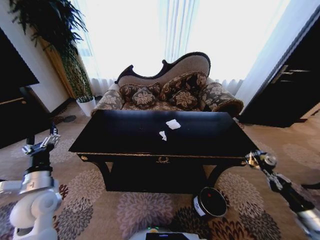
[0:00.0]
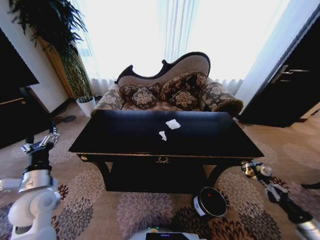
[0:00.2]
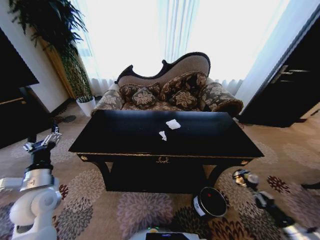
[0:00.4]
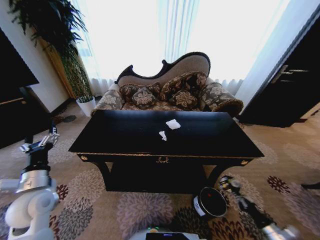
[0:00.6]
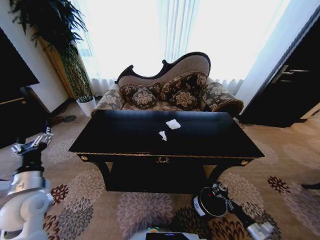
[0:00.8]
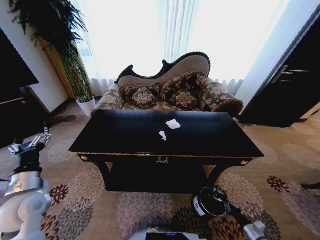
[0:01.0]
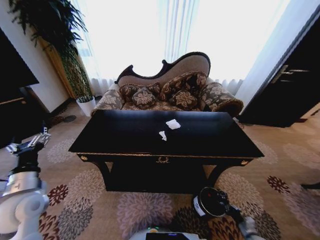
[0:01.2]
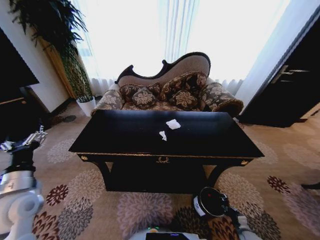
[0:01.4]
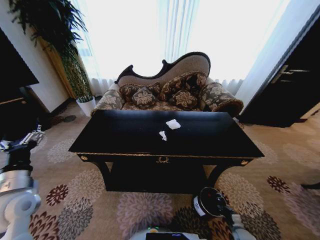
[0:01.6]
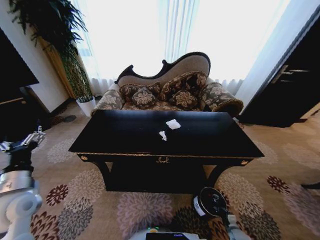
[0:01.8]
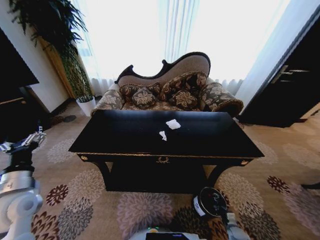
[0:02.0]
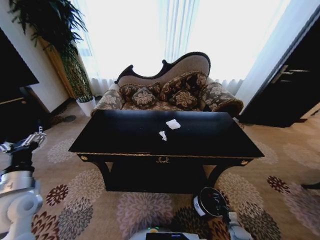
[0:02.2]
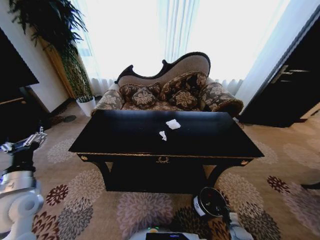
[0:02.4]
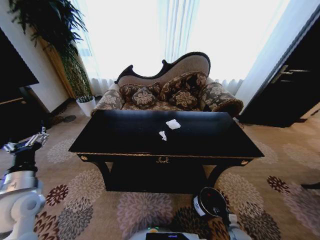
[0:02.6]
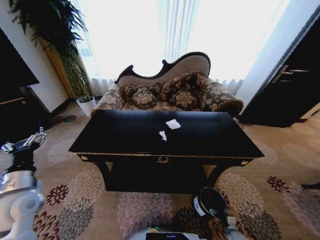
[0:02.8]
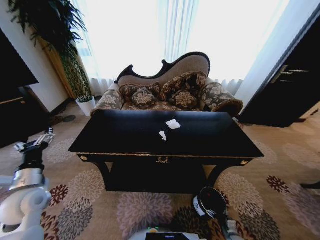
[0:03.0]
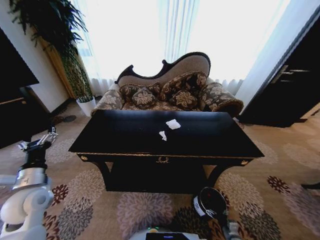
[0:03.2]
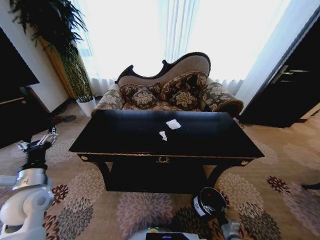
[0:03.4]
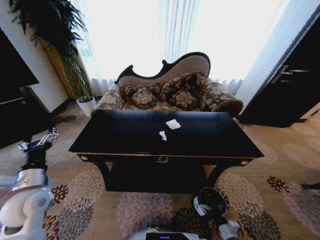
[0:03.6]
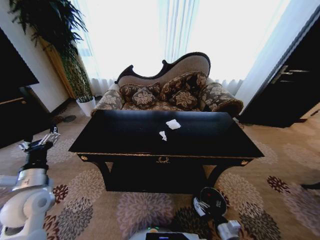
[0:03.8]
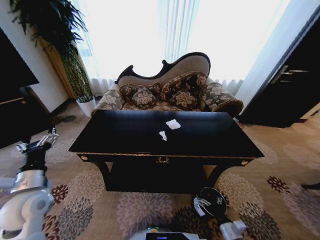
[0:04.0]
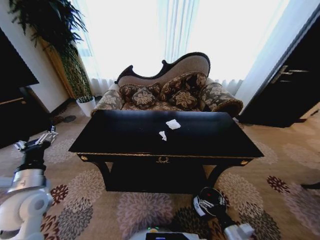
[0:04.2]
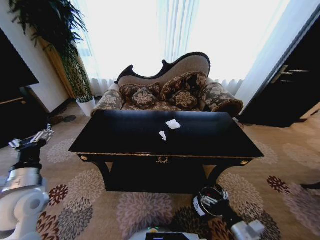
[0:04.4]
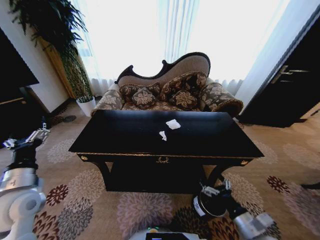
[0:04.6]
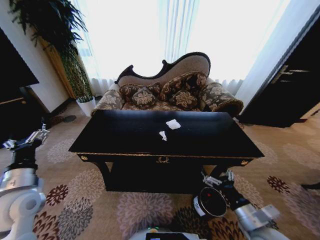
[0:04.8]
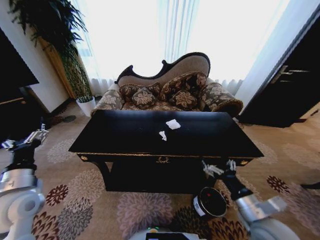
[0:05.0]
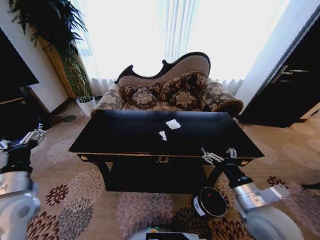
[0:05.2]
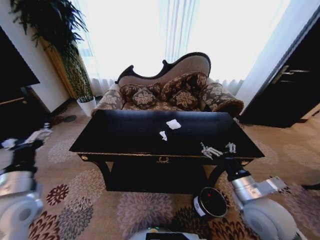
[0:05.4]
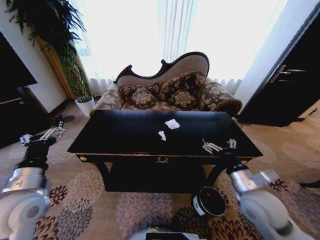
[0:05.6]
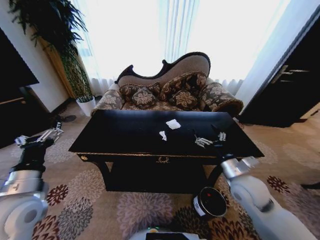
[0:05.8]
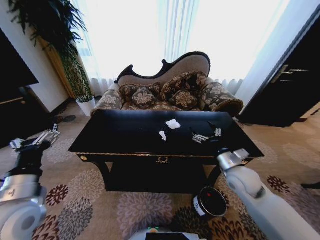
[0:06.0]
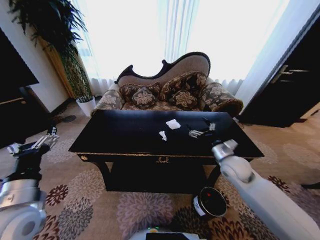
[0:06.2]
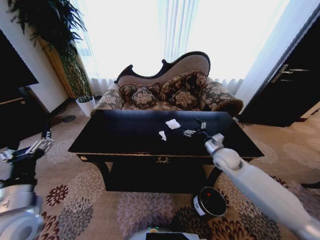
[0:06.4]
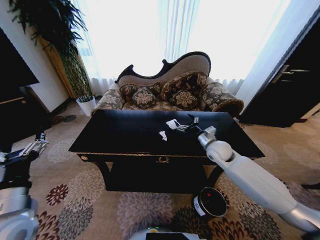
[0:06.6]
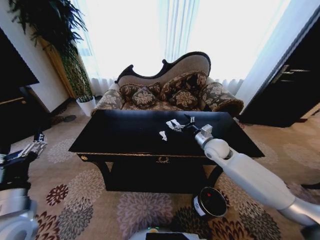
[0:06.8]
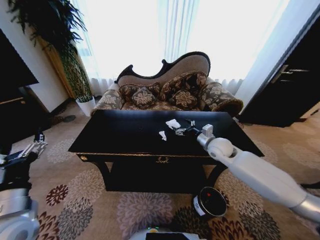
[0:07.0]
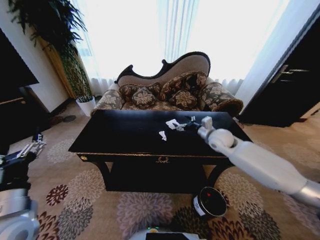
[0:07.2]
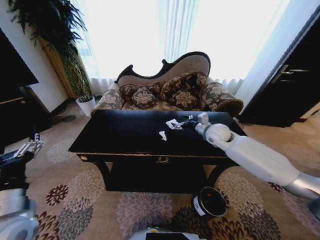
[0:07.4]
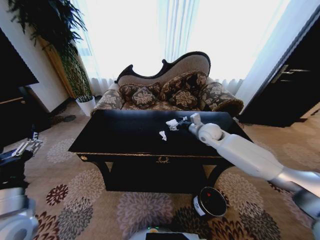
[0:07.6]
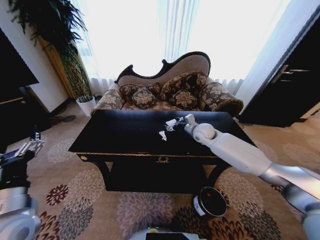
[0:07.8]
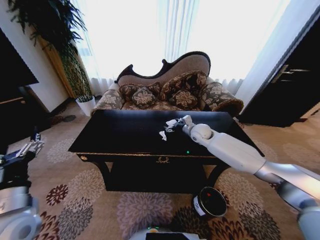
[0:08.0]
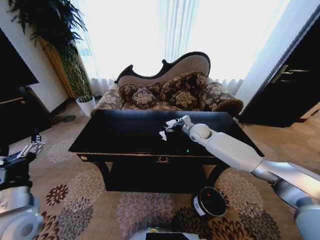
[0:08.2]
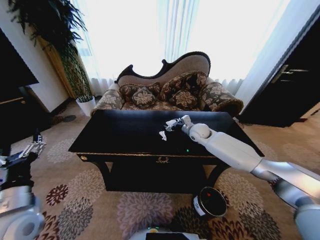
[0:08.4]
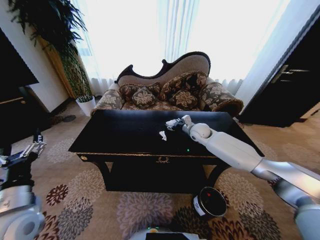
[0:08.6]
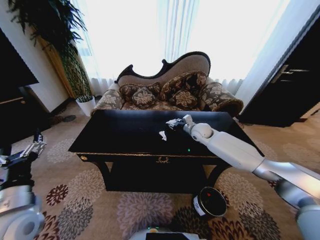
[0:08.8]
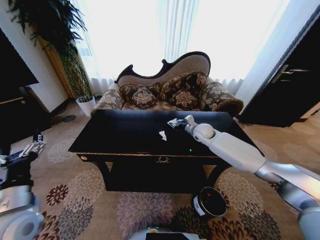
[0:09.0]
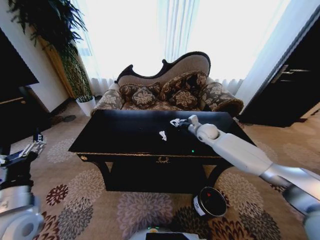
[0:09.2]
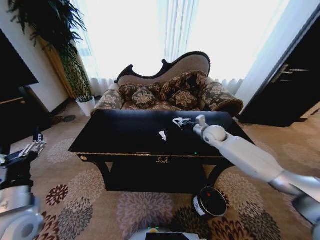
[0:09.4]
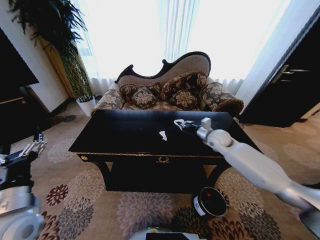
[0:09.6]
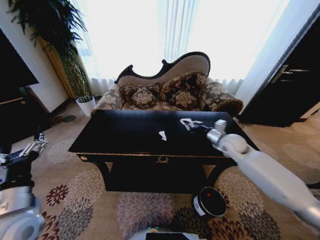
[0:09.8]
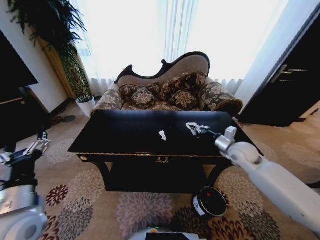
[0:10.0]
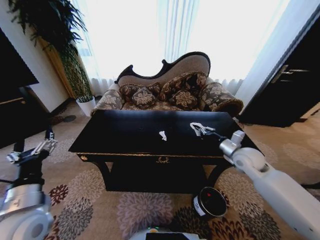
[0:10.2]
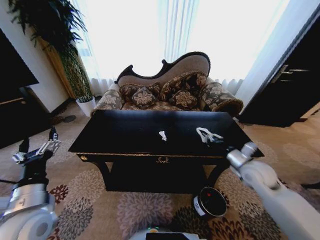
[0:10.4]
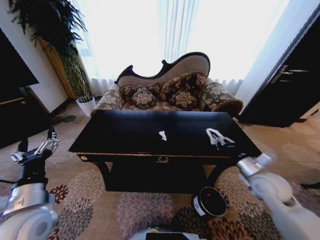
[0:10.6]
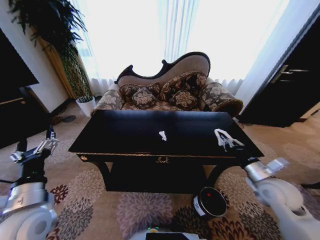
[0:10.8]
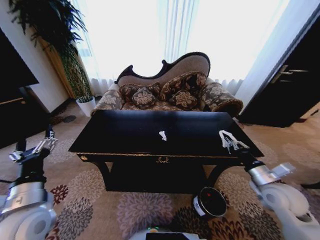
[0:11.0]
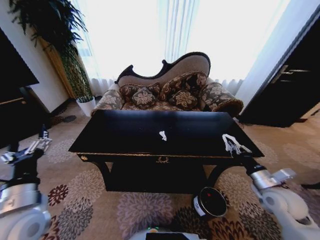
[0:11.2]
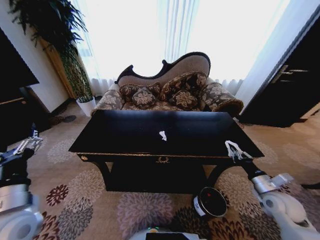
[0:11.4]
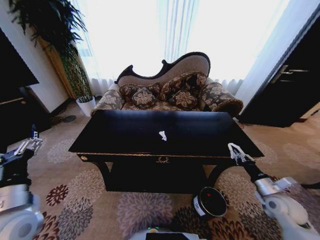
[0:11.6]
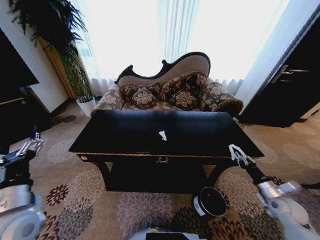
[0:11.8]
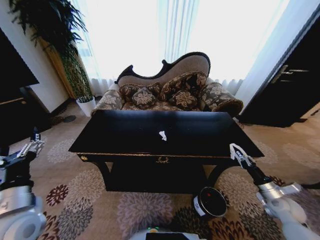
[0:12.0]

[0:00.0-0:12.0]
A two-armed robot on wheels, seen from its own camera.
Task of the whole recording: Move to the front of the table and place the trash on the table into the trash bin.
0:00.0 to 0:01.6: The right gripper goes roughly 30 cm downward and to the left; the left gripper changes place by about 5 cm.
0:01.6 to 0:03.0: The right gripper ends up approximately 5 cm from where it was, and opens its fingers.
0:03.0 to 0:04.4: The right gripper shifts approximately 25 cm upward.
0:04.4 to 0:06.0: The left gripper changes place by about 5 cm; the right gripper heads forward and upward, covering some 25 cm.
0:06.0 to 0:07.6: The right gripper goes approximately 20 cm forward.
0:07.6 to 0:09.0: The right gripper moves roughly 5 cm, and closes up.
0:09.0 to 0:10.4: The right gripper shifts roughly 25 cm backward and to the right.
0:10.4 to 0:12.0: The right gripper heads to the right, downward and backward, covering roughly 20 cm.

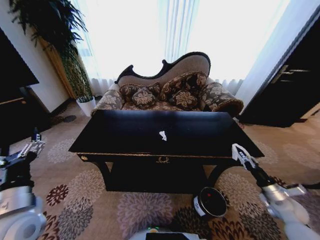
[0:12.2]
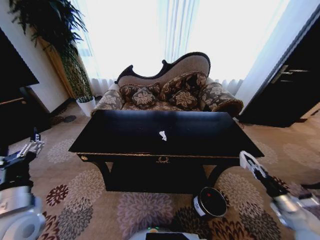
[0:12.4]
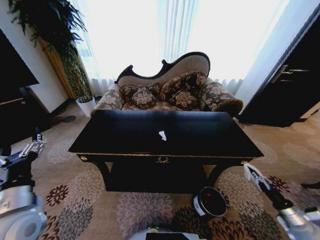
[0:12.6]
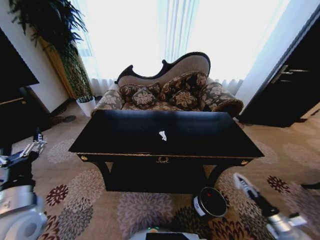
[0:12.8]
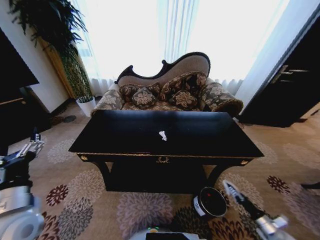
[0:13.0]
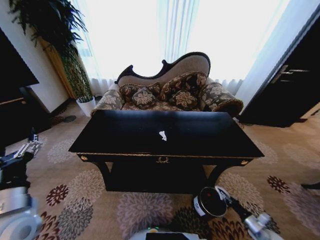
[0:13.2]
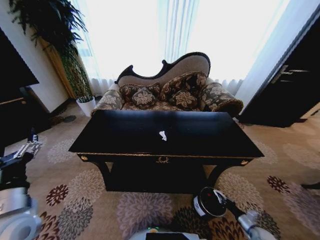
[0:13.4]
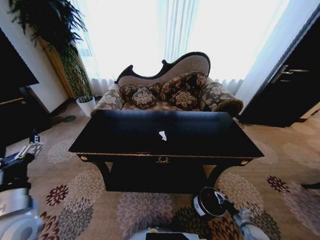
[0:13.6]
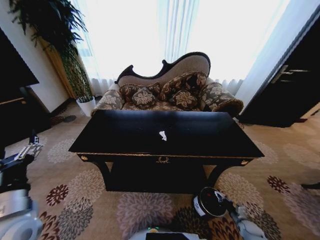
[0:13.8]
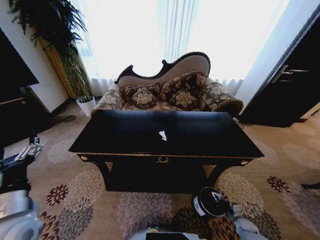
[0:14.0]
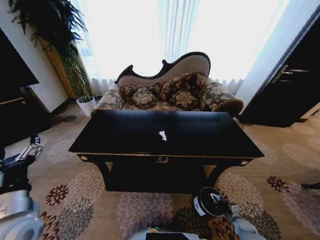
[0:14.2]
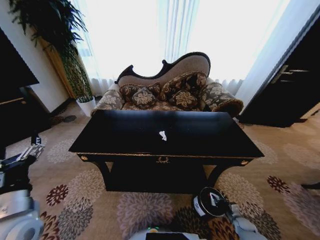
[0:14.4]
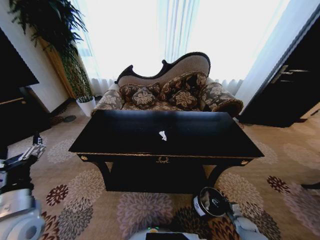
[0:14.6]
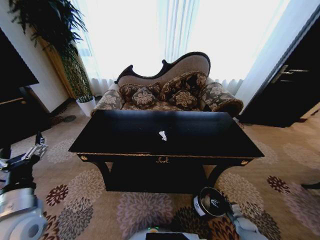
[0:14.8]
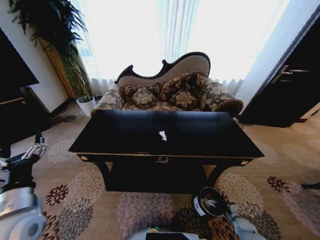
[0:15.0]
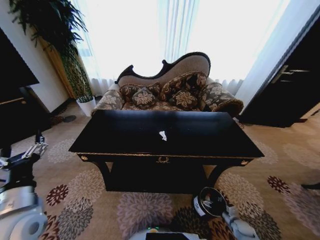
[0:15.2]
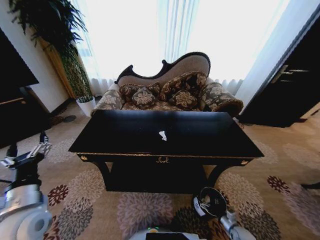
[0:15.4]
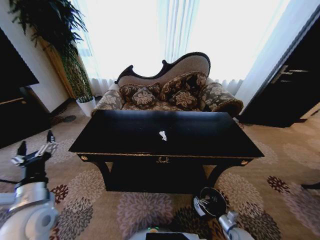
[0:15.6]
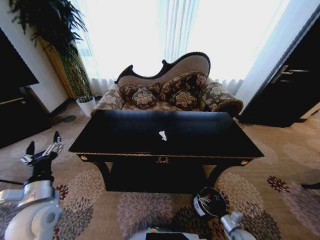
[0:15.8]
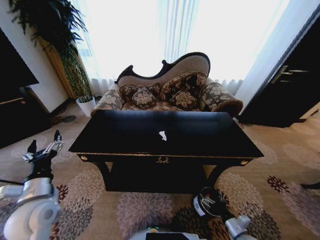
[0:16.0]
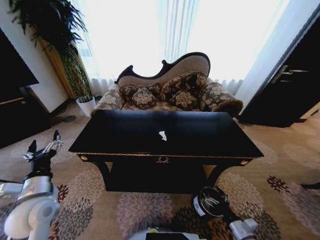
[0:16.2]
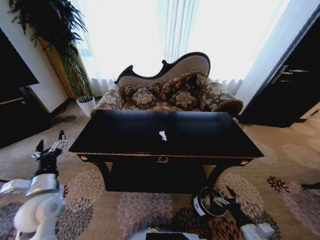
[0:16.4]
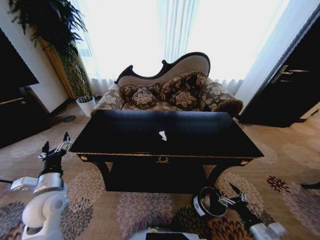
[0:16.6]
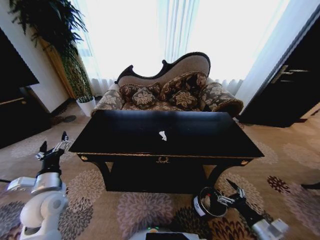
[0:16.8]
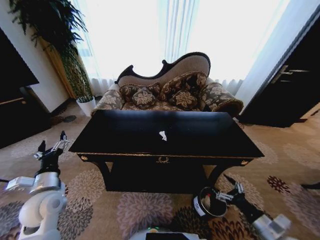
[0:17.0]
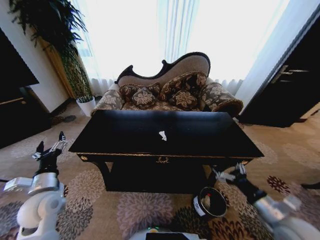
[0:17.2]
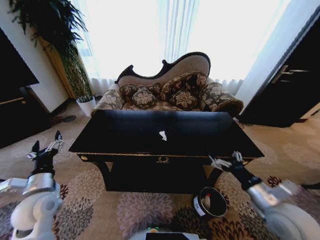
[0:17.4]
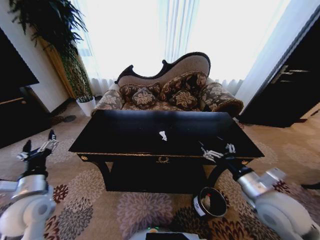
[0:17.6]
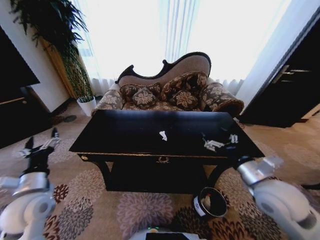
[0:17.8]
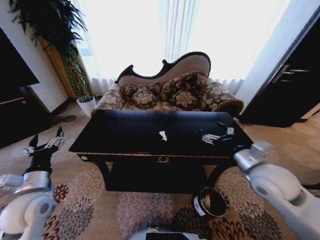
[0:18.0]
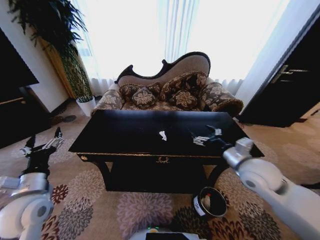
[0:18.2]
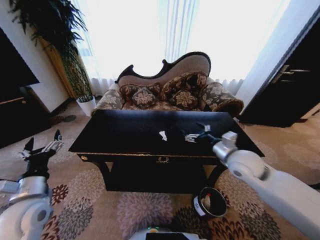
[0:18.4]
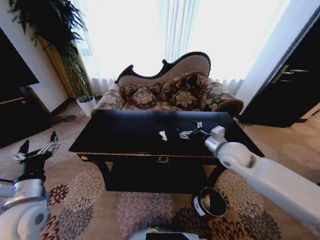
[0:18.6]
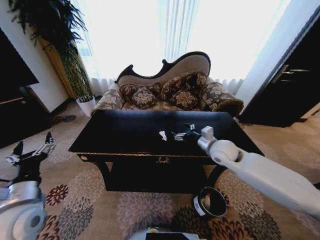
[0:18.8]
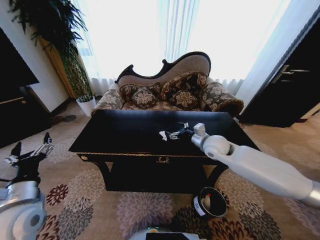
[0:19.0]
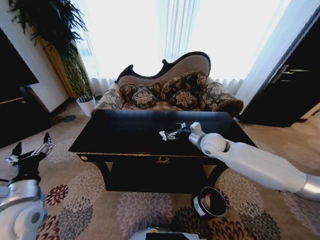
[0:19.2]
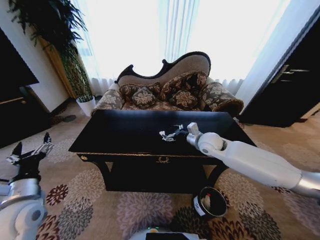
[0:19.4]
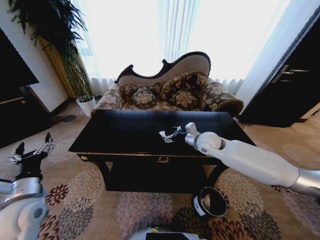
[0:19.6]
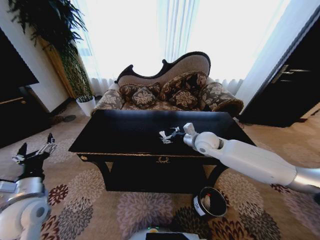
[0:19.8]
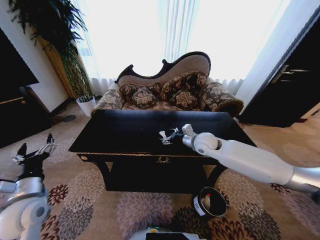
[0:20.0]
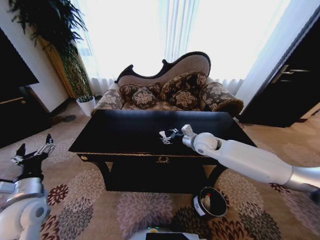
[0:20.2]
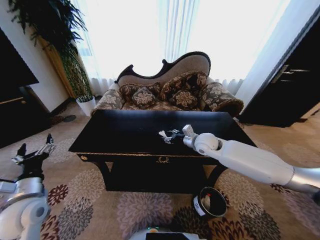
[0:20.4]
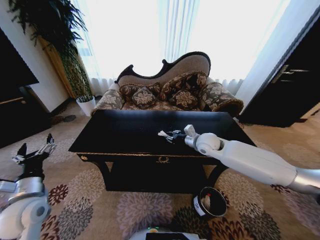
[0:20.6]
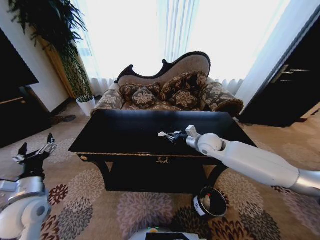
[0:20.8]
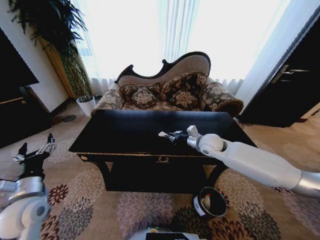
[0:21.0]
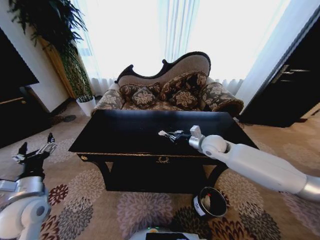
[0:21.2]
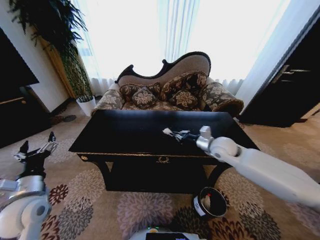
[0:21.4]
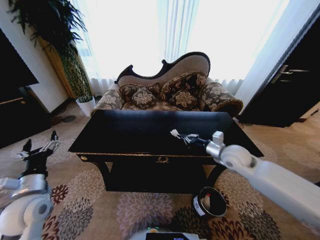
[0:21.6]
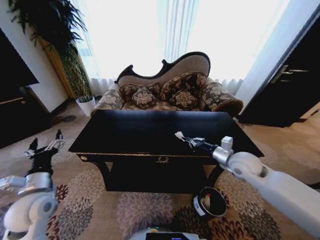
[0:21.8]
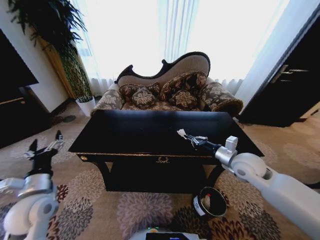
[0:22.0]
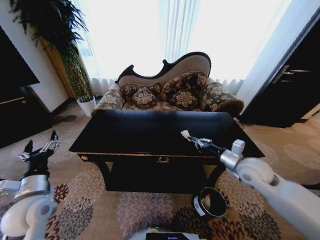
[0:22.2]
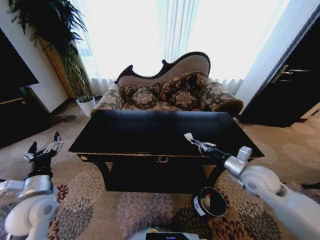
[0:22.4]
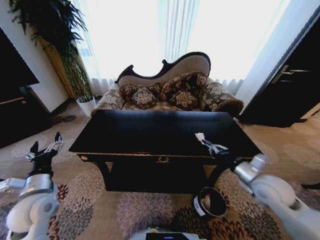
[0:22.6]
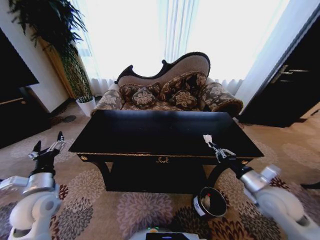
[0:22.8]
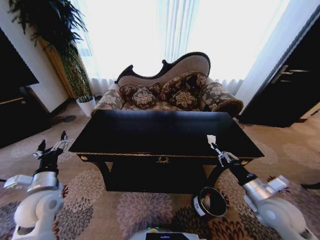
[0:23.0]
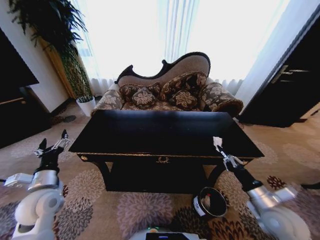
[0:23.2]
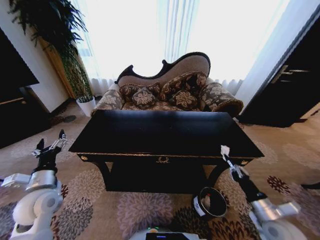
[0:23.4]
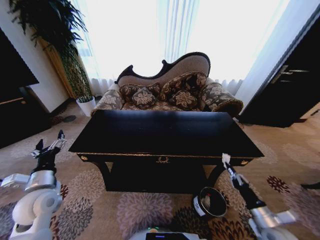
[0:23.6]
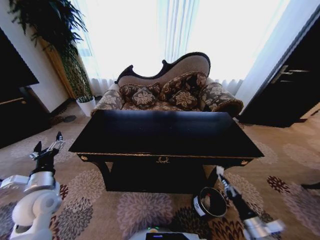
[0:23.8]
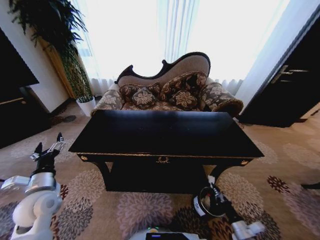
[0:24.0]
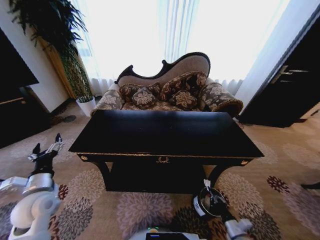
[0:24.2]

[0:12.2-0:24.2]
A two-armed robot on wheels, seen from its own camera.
Task of the whole recording: Move to the front of the table and place the trash on the table into the trash bin.
0:12.2 to 0:13.8: The right gripper shifts about 25 cm downward.
0:13.8 to 0:15.2: The right gripper opens its fingers.
0:15.2 to 0:16.6: The right gripper moves upward and backward, roughly 25 cm. The left gripper heads forward and downward, covering about 10 cm.
0:16.6 to 0:18.2: The left gripper ends up roughly 5 cm from where it was. The right gripper heads upward, forward and to the left, covering approximately 35 cm.
0:18.2 to 0:19.8: The right gripper travels forward and to the left by roughly 15 cm.
0:19.8 to 0:21.2: The right gripper closes up.
0:21.2 to 0:22.6: The right gripper heads backward and to the right, covering about 20 cm.
0:22.6 to 0:24.2: The right gripper heads downward and backward, covering about 35 cm.
